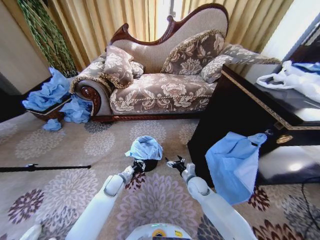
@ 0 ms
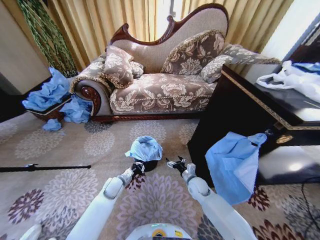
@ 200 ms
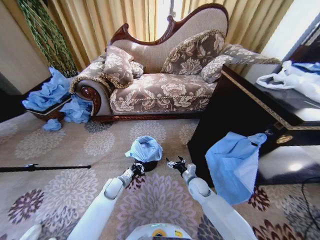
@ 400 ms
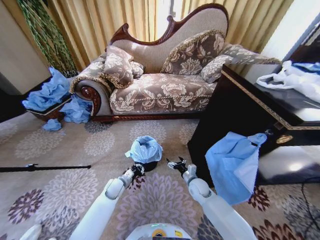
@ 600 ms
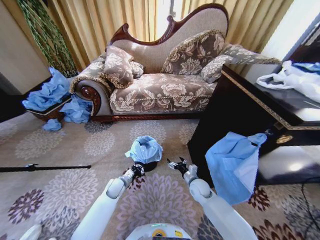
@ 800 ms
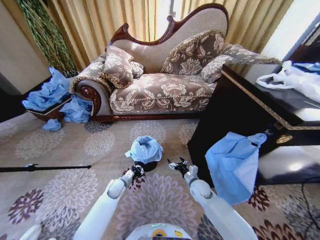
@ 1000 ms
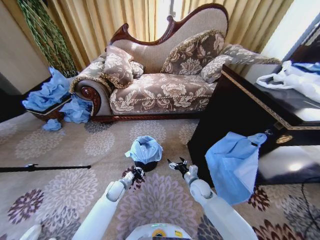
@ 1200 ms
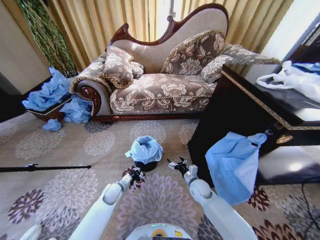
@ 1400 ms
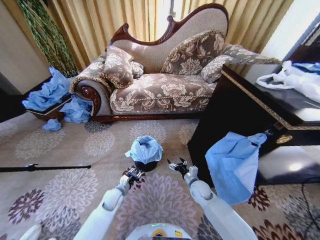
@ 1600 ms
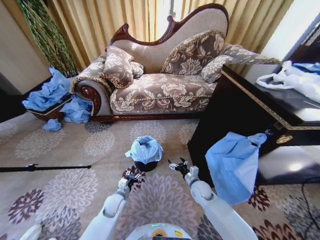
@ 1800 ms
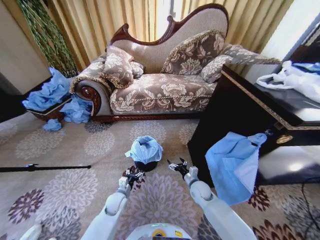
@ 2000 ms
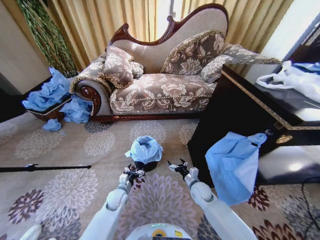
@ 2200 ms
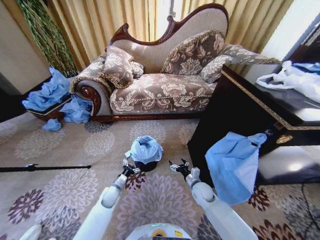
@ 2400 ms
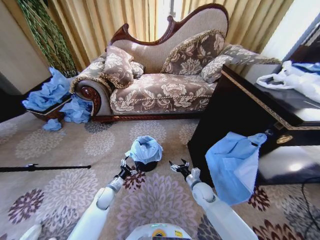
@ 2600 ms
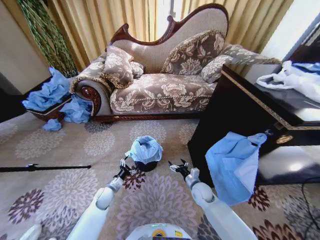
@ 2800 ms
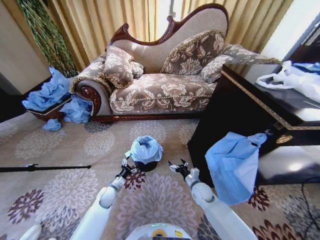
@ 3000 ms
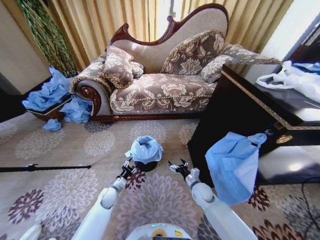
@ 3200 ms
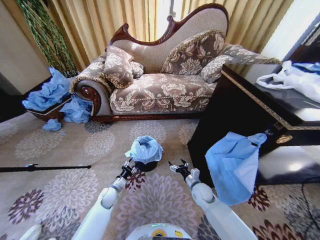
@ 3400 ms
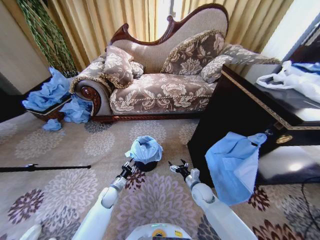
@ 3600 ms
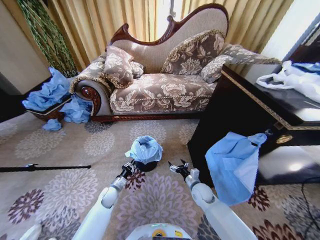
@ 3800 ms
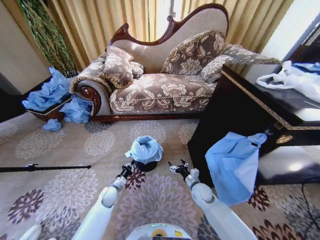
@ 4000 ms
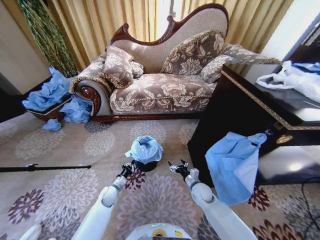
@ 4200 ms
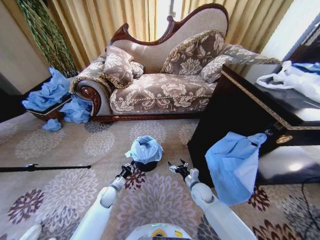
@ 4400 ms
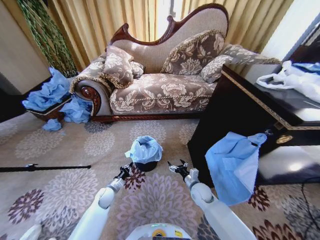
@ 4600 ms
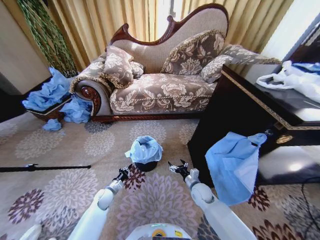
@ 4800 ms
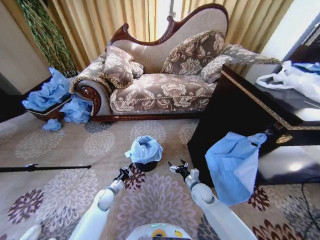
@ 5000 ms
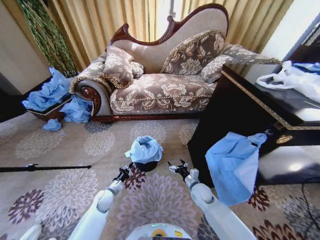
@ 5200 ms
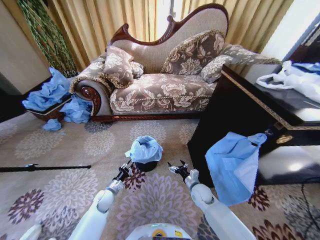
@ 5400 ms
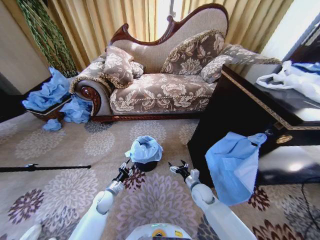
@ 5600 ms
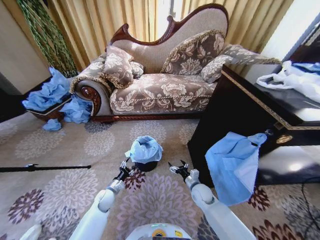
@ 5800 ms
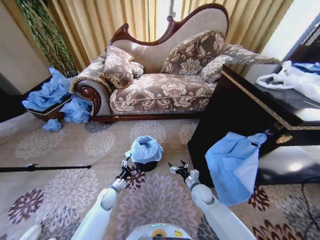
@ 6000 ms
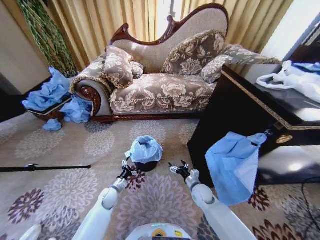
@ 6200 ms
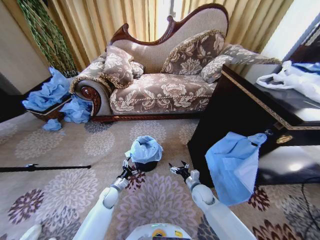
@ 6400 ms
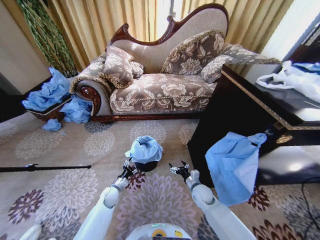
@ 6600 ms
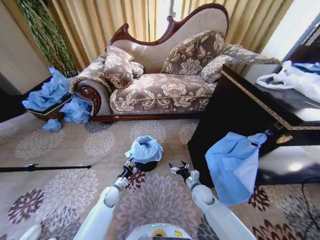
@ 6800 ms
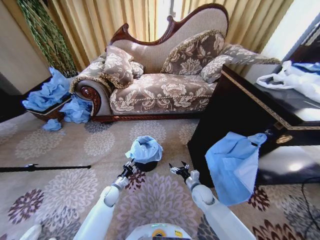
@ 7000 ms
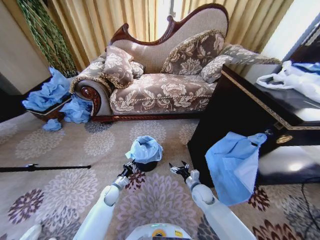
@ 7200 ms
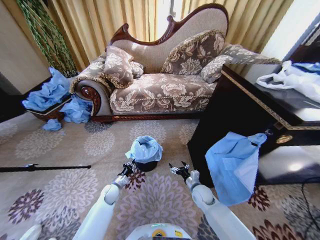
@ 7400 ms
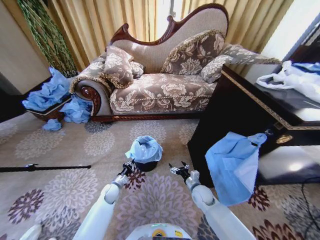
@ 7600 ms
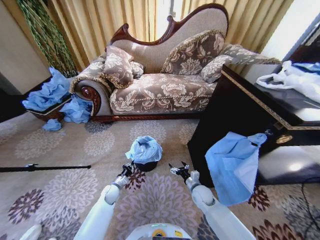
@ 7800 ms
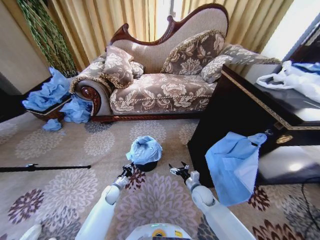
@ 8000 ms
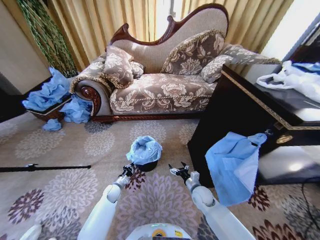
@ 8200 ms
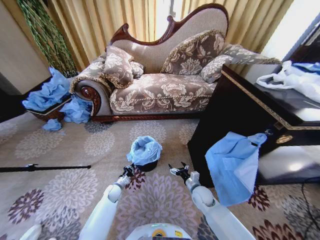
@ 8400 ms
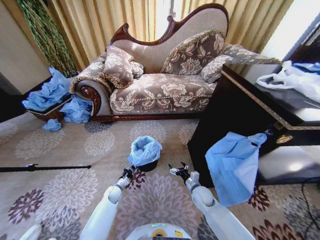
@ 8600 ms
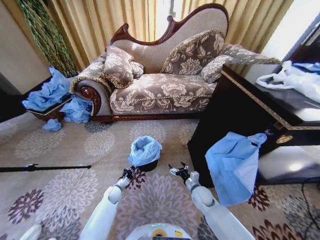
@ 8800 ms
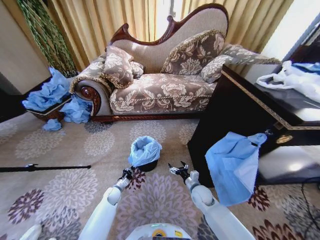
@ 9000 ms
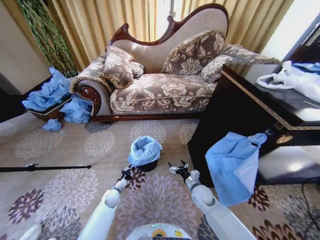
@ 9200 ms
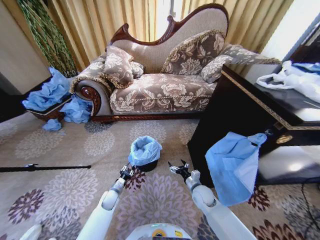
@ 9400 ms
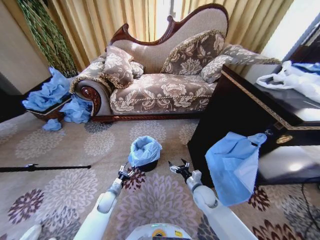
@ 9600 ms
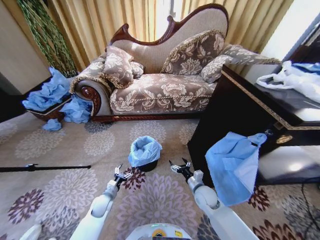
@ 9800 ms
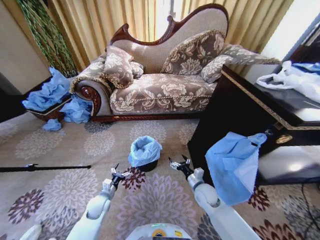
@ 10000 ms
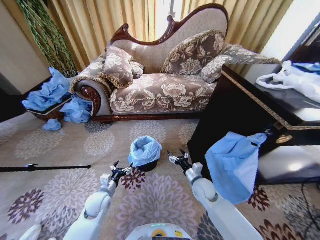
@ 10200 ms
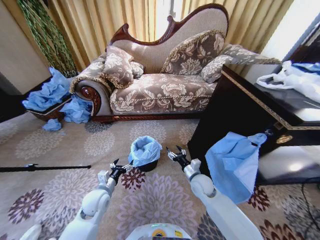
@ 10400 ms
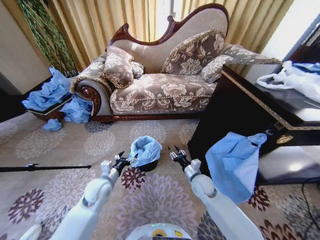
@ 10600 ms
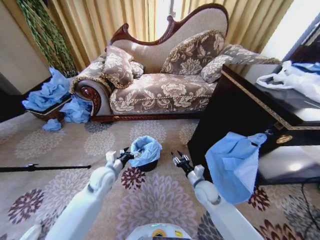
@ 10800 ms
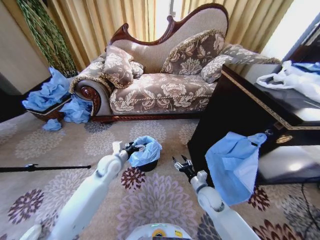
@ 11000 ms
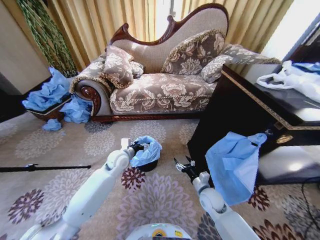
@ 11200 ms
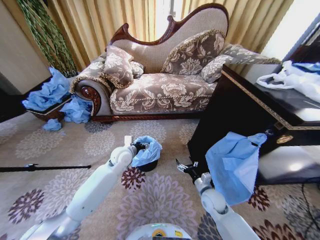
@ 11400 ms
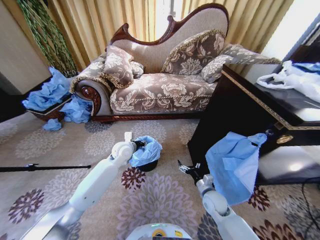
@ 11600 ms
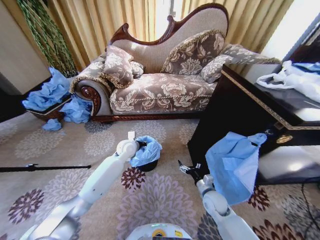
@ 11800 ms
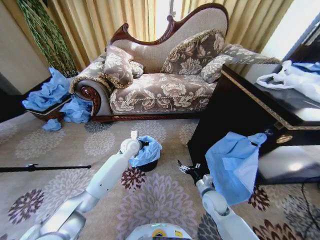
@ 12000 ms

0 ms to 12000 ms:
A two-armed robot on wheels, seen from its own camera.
Task of the whole recording: Place a garbage bag over the trash bin.
0 ms to 1600 ms: The left gripper heads backward and downward, covering roughly 10 cm, and opens its fingers.
1600 ms to 3000 ms: The left gripper changes place by some 5 cm, and opens up.
4400 ms to 6000 ms: The left gripper opens up.
6000 ms to 7600 ms: The left gripper closes.
7600 ms to 9000 ms: The left gripper goes about 5 cm downward.
9000 ms to 10400 ms: The left gripper heads upward, covering some 20 cm, and opens up. The right gripper moves upward, some 10 cm.
10400 ms to 12000 ms: The left gripper goes approximately 25 cm forward and to the right, and closes up, while the right gripper travels to the right, downward and backward by some 10 cm.

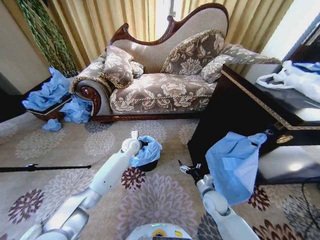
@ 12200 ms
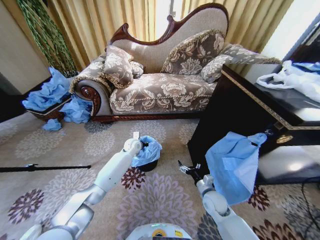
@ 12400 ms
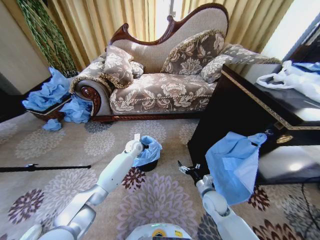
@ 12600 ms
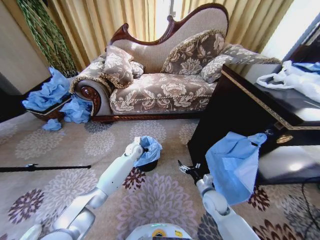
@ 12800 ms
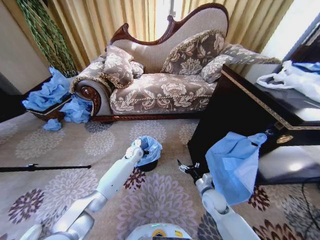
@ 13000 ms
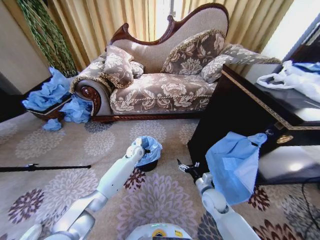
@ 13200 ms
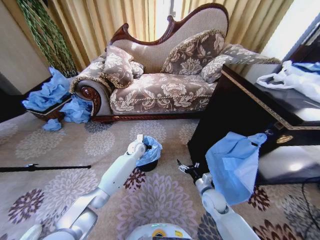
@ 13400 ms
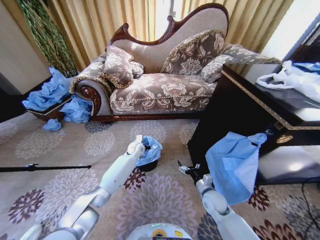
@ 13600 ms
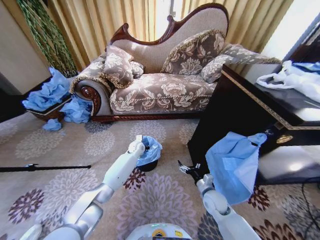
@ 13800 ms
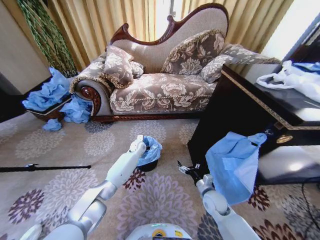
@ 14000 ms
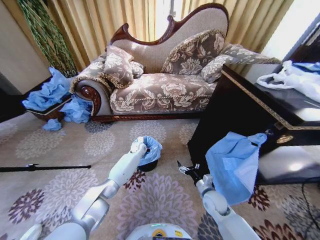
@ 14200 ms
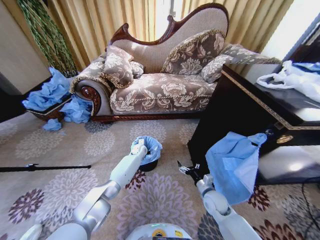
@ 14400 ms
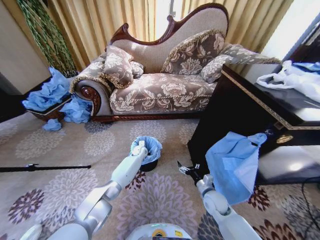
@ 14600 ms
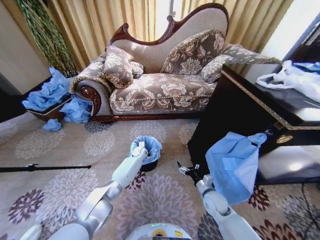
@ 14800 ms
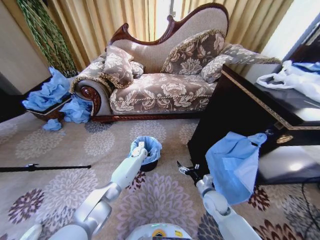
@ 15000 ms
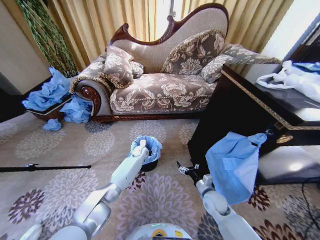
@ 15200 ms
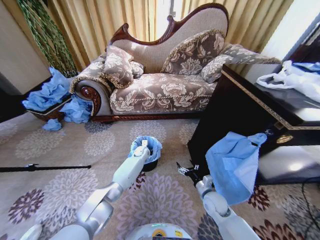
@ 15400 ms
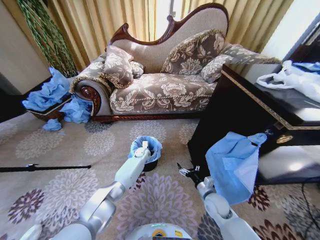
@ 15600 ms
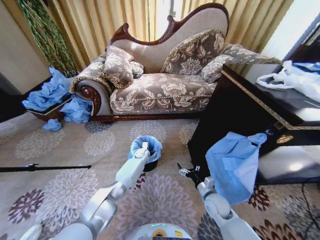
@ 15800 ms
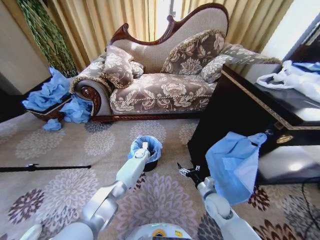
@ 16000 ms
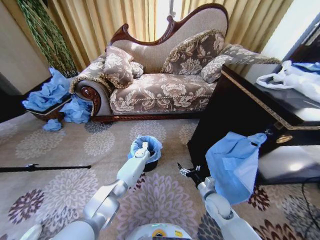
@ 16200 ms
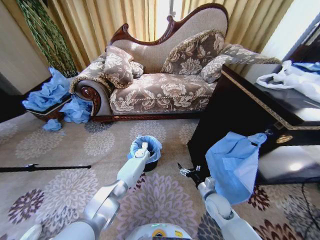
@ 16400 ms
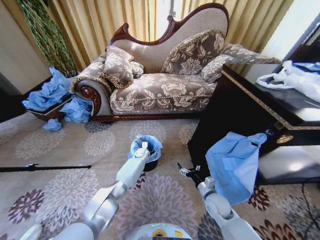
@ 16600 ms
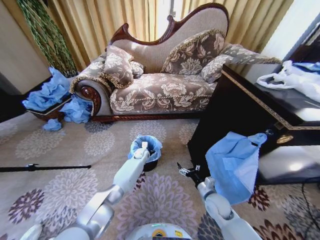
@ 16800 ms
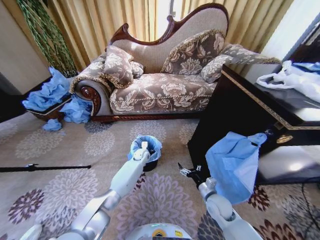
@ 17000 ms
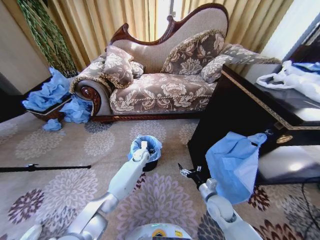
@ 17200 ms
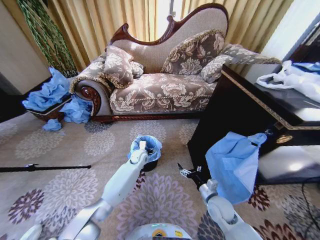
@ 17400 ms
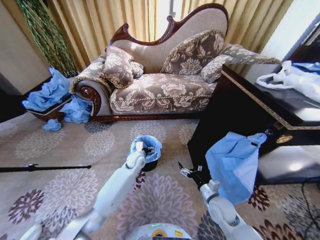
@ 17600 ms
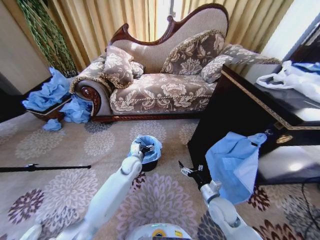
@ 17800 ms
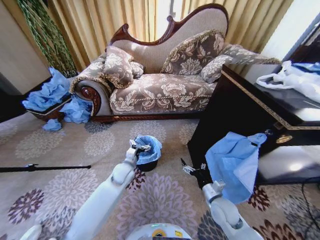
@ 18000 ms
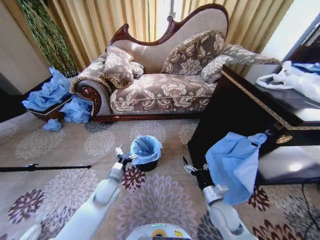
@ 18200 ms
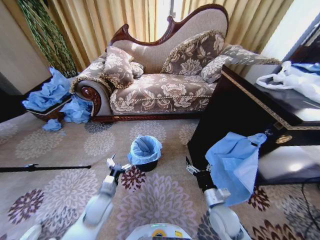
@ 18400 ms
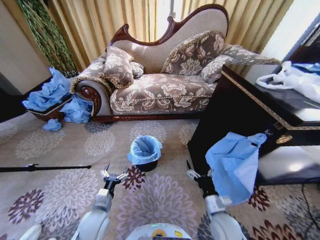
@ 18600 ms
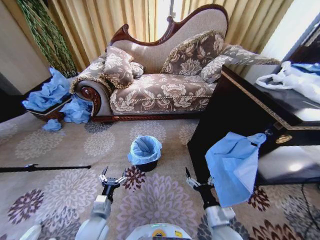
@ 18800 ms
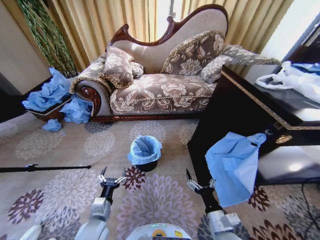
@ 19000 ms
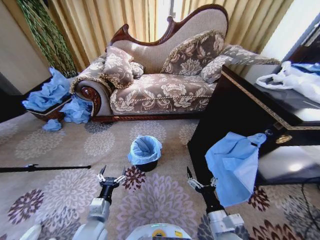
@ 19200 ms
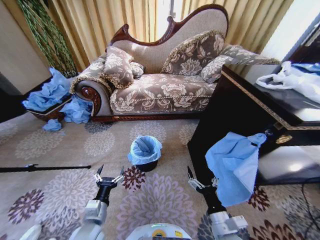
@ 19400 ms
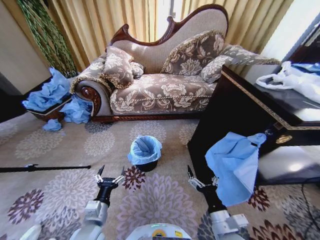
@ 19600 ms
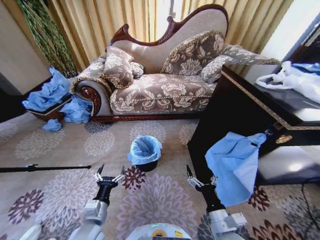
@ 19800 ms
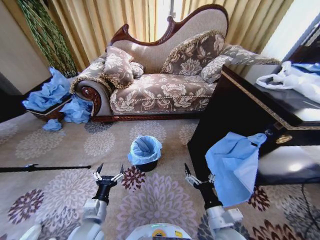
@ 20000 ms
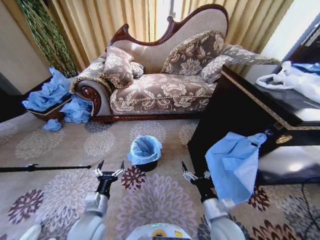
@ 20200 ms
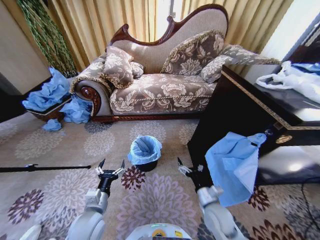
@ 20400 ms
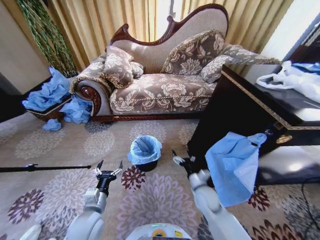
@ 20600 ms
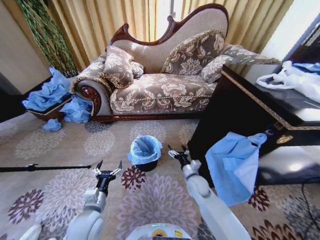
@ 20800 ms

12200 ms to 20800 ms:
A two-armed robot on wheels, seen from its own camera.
Task of the whole recording: Place a garbage bag over the trash bin.
12200 ms to 13600 ms: The left gripper changes place by approximately 5 cm.
13600 ms to 15000 ms: The left gripper travels downward by roughly 10 cm.
15000 ms to 16600 ms: The grippers stay close to where they were, moving slightly.
16600 ms to 18000 ms: The right gripper moves some 5 cm; the left gripper moves backward and upward, about 20 cm, and opens its fingers.
18000 ms to 19400 ms: The right gripper goes about 10 cm backward, while the left gripper goes roughly 20 cm backward.
19400 ms to 20800 ms: The right gripper heads forward, covering about 20 cm.
